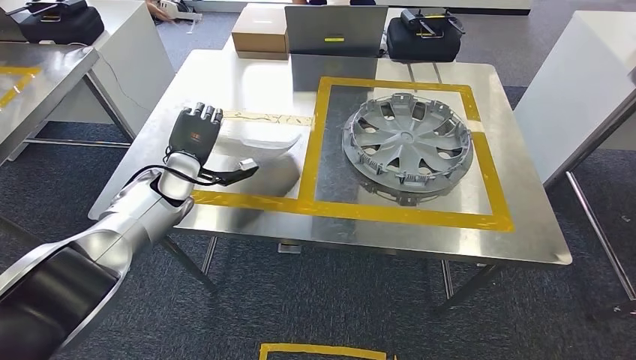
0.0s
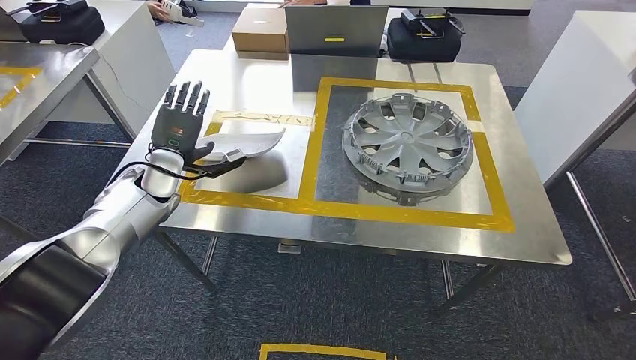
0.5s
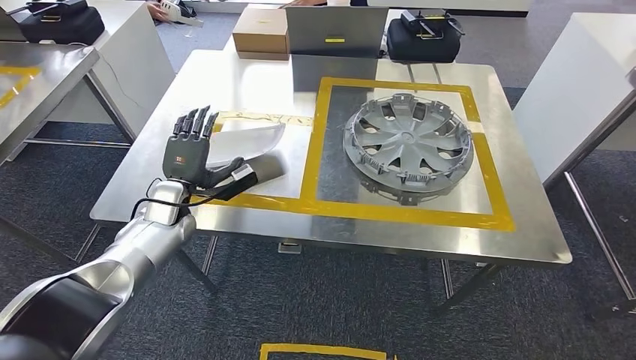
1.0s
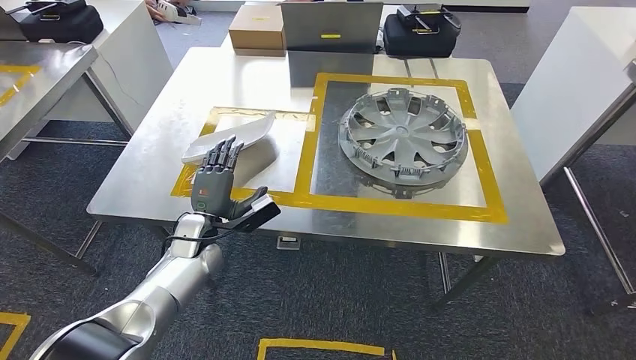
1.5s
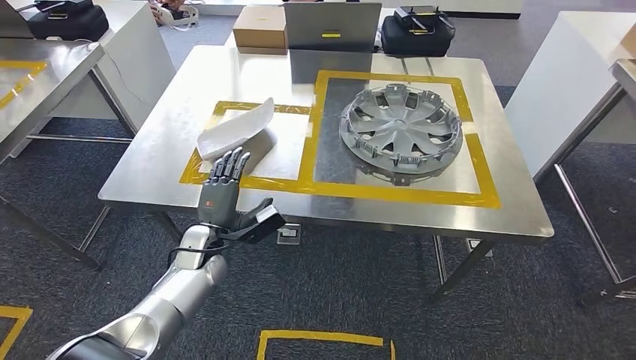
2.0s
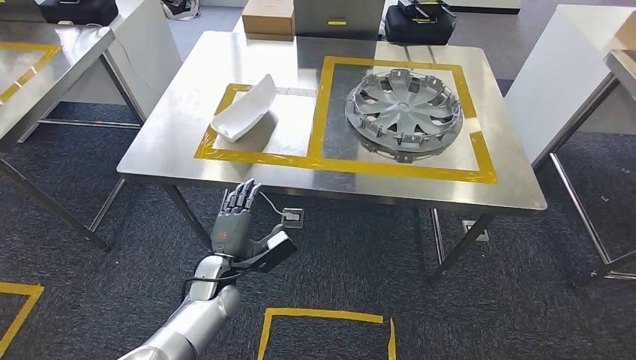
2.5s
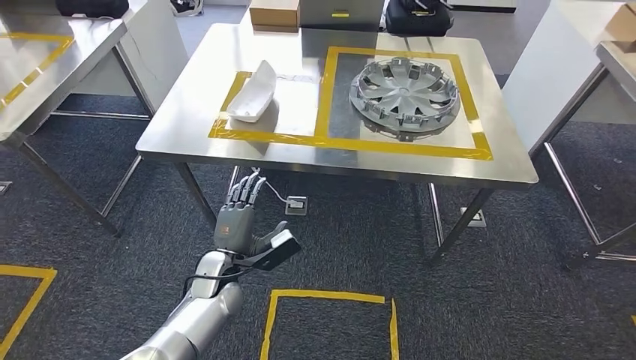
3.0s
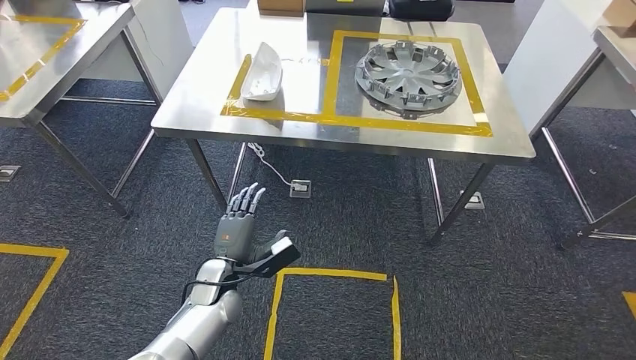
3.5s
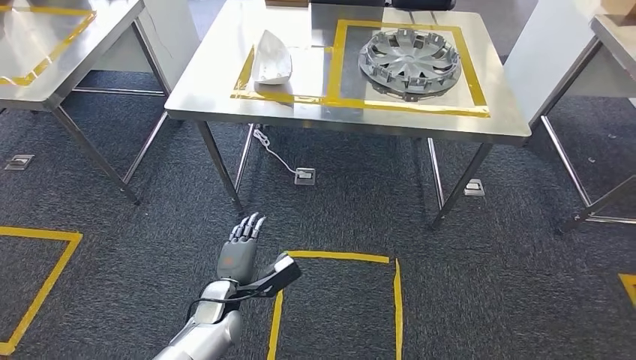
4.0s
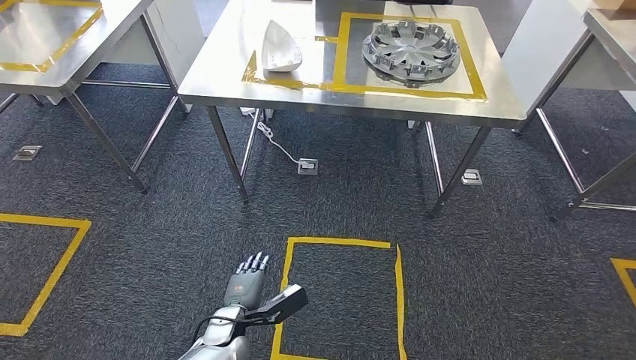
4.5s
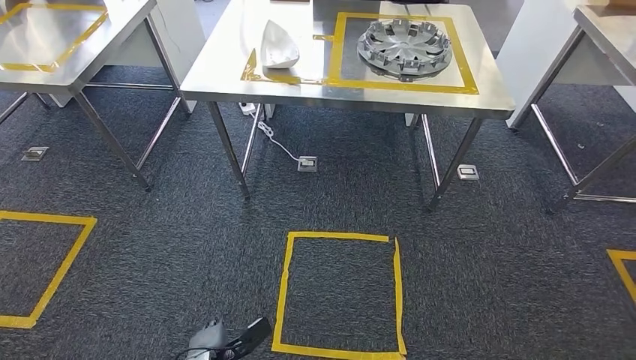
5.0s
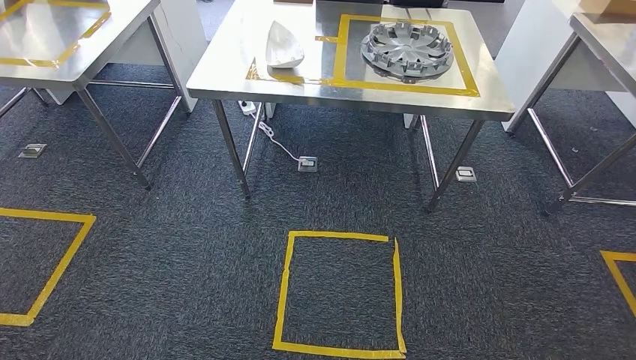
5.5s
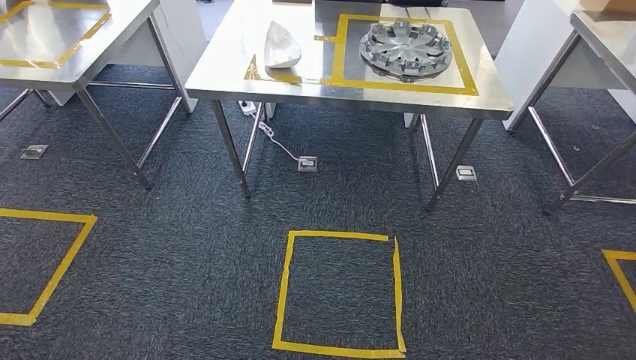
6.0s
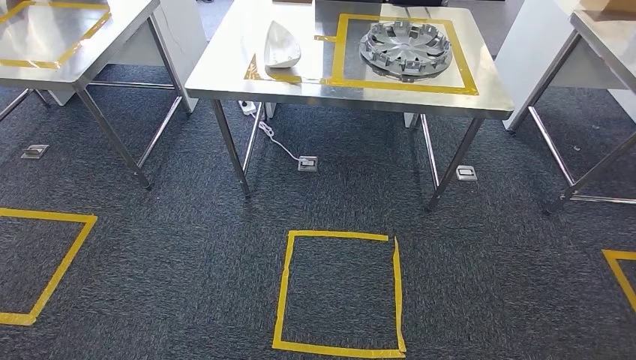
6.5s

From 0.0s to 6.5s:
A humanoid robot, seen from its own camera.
Step, from 2.0s to 6.5s: Return to the initial position at the workbench.
From 4.5s to 6.5s: The left hand travels backward by roughly 20 cm.
